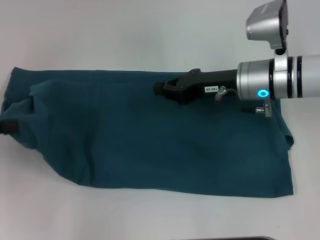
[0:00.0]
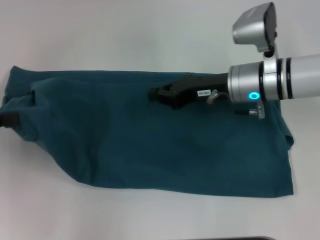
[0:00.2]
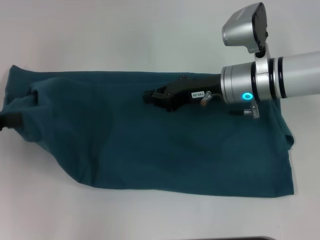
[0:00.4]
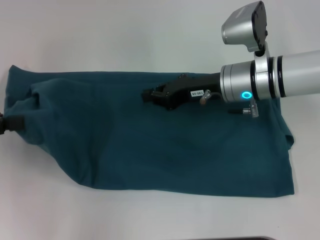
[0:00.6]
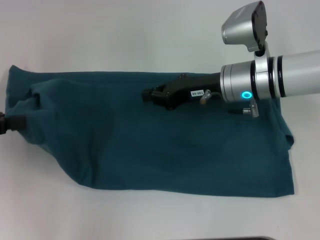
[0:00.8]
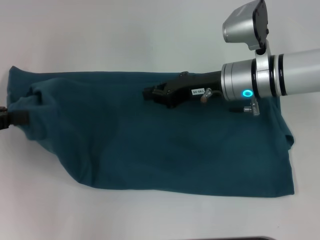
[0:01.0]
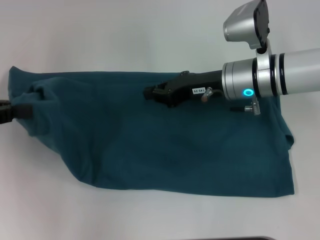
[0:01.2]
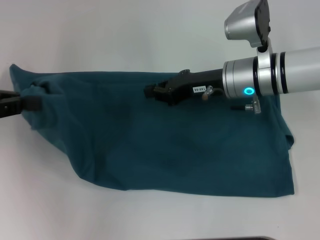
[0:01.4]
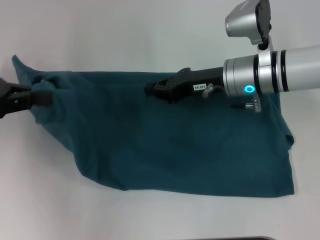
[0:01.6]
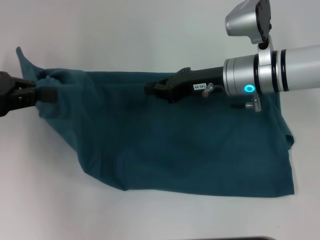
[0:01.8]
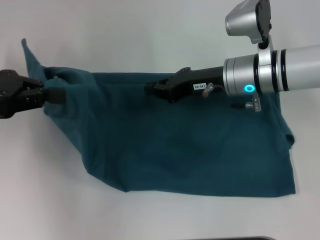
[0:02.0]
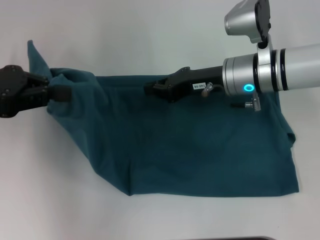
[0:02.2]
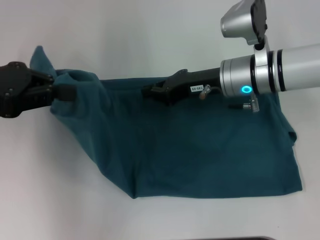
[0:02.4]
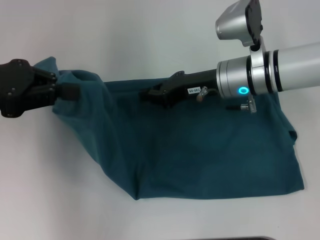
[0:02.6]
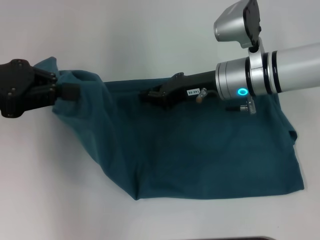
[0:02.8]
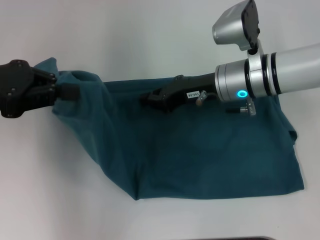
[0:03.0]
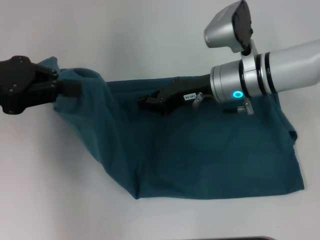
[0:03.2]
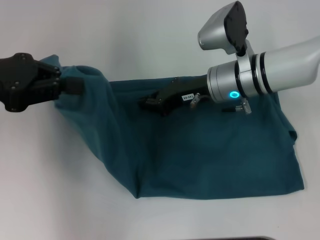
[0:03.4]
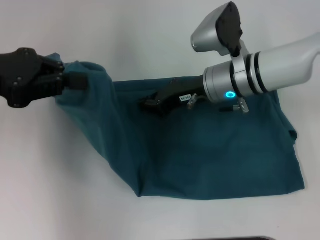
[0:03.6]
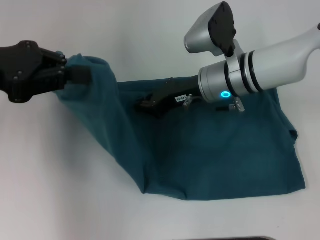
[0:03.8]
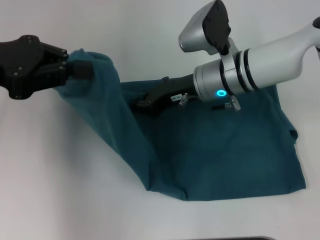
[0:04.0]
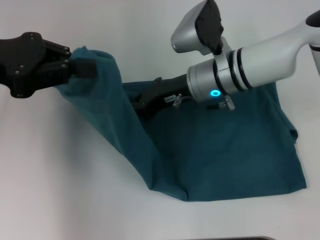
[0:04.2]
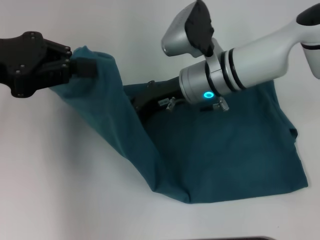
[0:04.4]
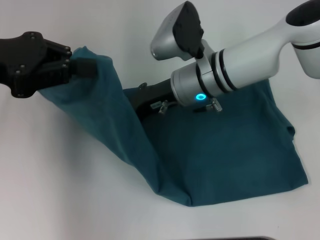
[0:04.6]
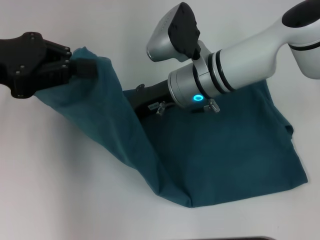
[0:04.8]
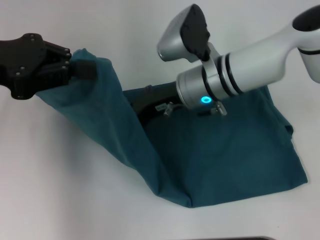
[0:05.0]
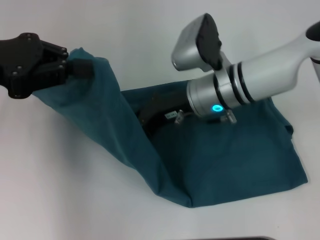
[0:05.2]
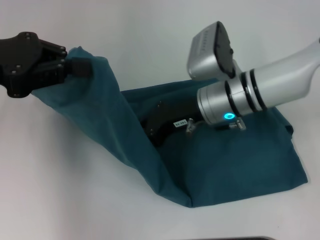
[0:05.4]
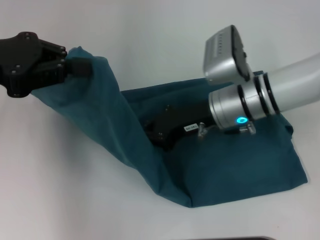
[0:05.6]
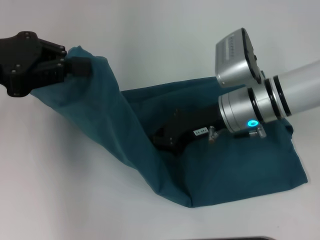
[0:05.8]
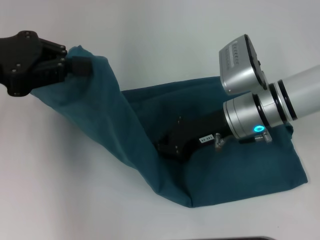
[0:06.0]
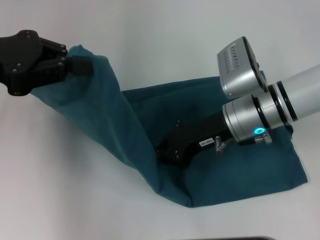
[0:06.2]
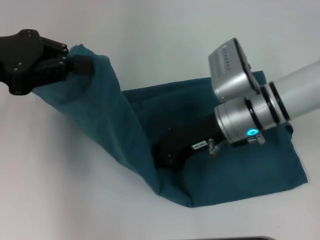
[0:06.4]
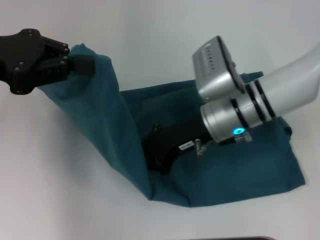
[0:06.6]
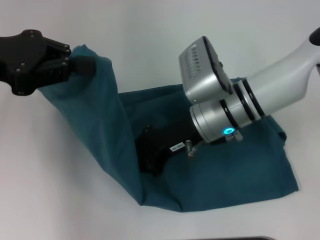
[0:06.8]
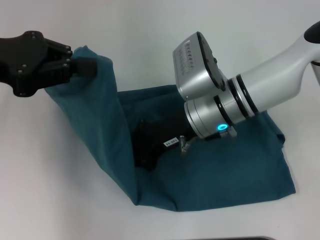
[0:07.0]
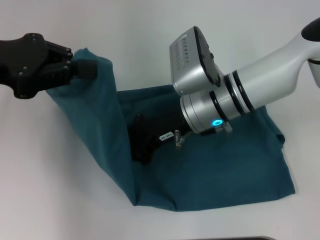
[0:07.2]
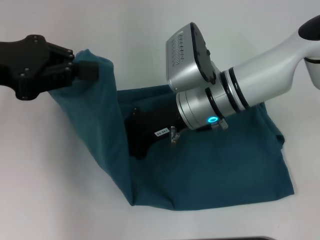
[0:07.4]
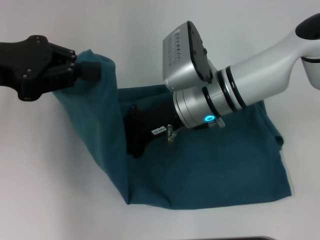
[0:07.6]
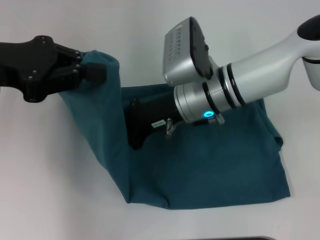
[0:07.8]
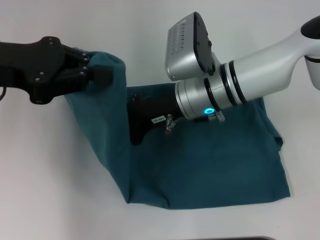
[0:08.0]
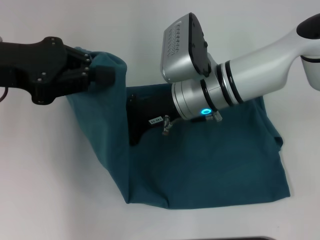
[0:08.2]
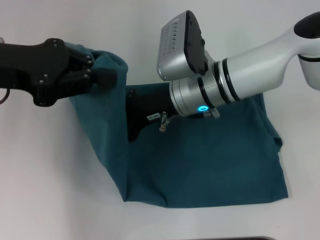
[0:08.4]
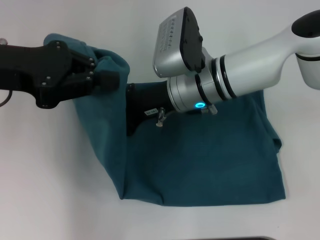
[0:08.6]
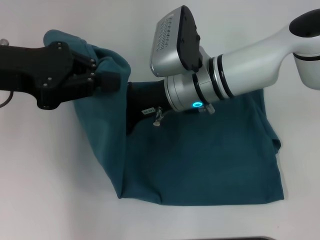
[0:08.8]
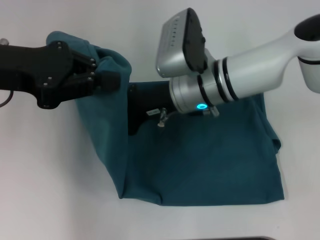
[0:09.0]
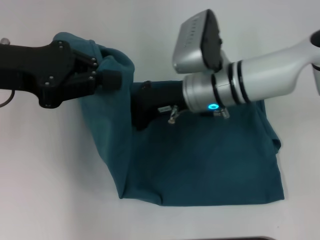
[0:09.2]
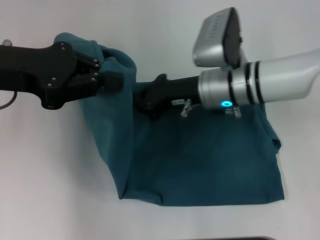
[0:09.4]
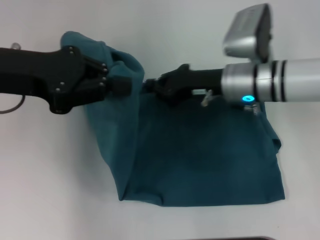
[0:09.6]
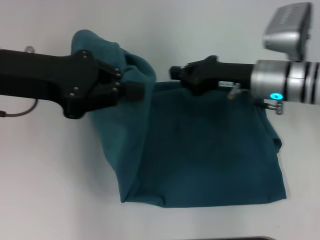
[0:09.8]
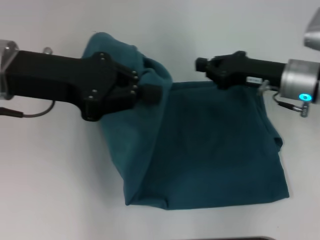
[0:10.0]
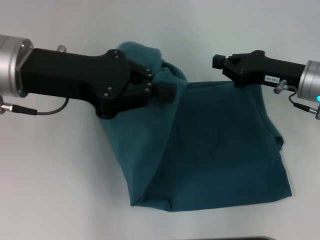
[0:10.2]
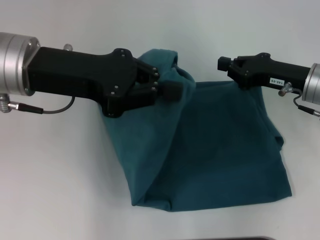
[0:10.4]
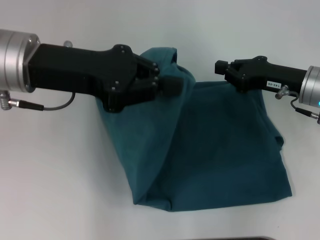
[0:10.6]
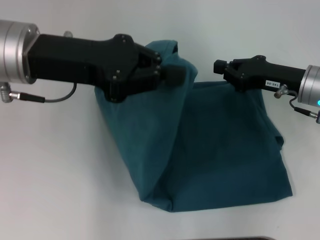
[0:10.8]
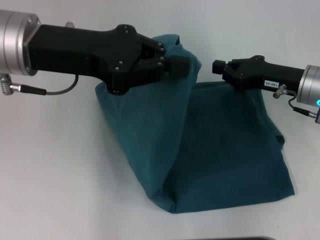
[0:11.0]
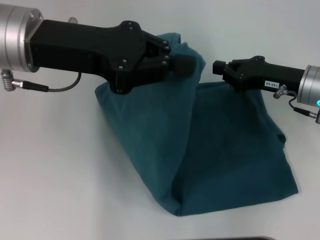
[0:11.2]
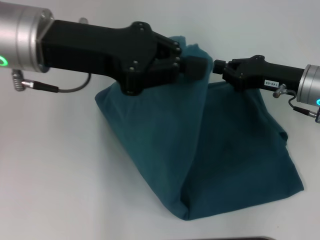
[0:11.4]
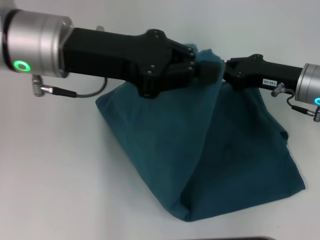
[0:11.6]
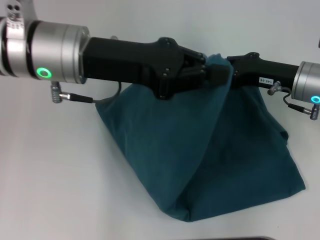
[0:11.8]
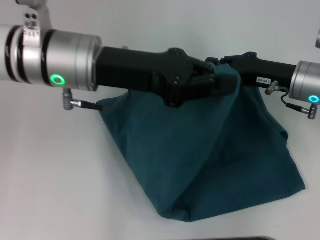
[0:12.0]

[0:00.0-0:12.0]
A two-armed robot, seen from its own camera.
Step, 0:00.0 to 0:09.2: Press the middle of the clothes with your right hand.
0:00.0 to 0:01.6: The left gripper shifts by about 5 cm.
0:01.6 to 0:03.0: There are only small adjustments of the grippers.
0:03.0 to 0:04.4: The right gripper moves to the left, some 5 cm.
0:04.4 to 0:06.0: The right gripper goes about 5 cm to the right.
0:06.0 to 0:07.6: The right gripper shifts roughly 5 cm to the left.
0:07.6 to 0:09.0: There are only small adjustments of the grippers.
0:09.0 to 0:10.4: The right gripper shifts some 20 cm to the right. Meanwhile the left gripper shifts roughly 5 cm to the right.
0:10.4 to 0:12.0: The left gripper travels to the right by roughly 5 cm.

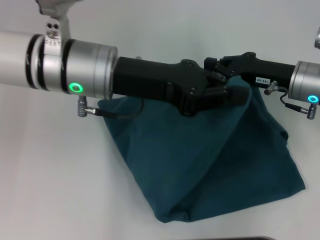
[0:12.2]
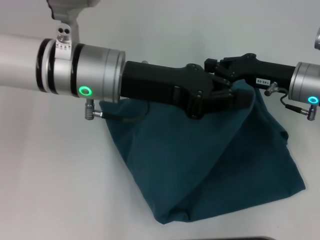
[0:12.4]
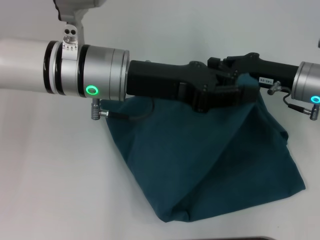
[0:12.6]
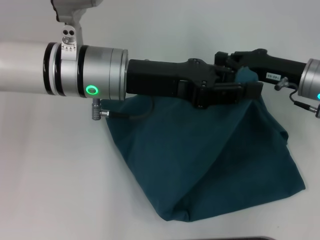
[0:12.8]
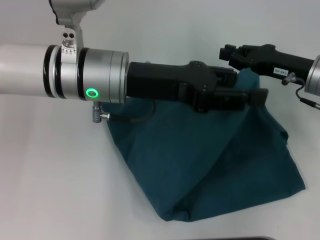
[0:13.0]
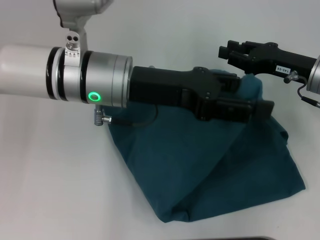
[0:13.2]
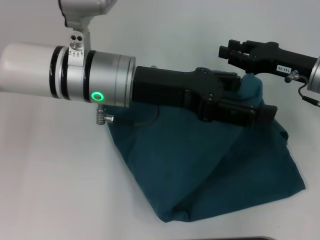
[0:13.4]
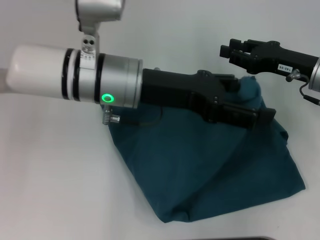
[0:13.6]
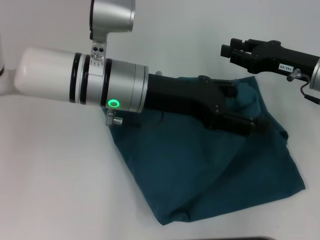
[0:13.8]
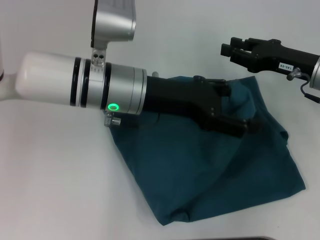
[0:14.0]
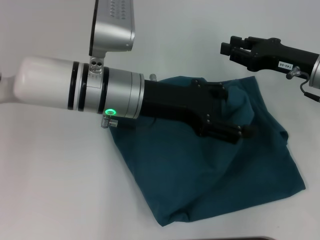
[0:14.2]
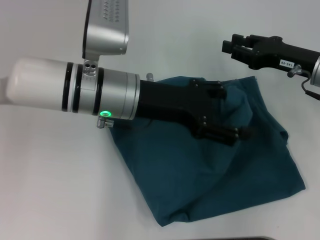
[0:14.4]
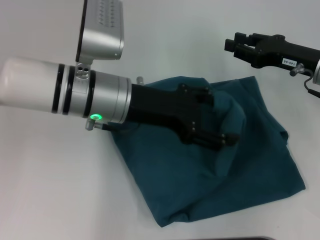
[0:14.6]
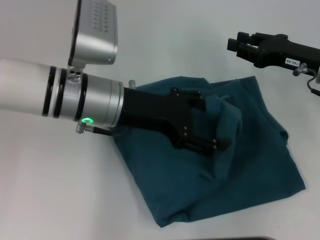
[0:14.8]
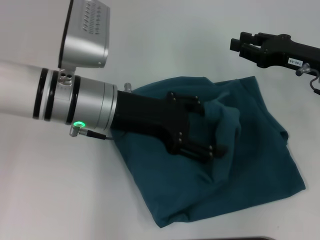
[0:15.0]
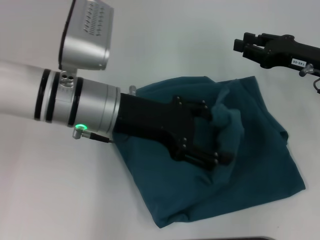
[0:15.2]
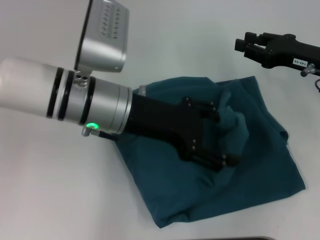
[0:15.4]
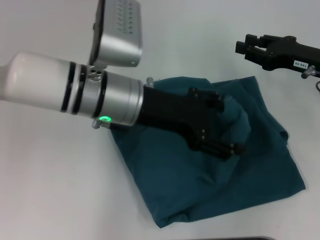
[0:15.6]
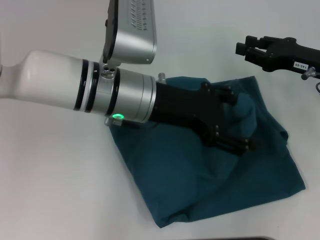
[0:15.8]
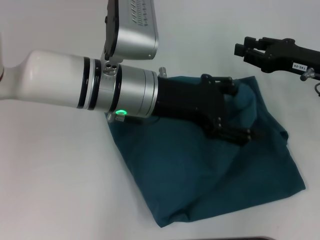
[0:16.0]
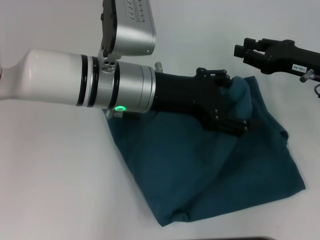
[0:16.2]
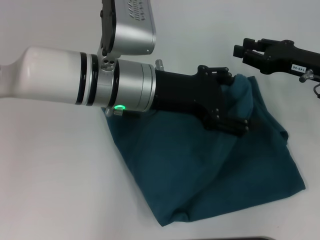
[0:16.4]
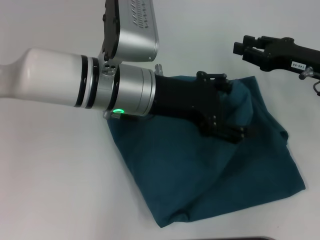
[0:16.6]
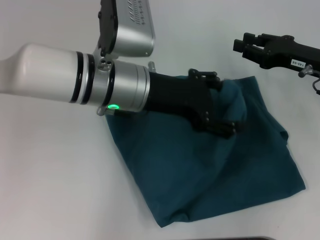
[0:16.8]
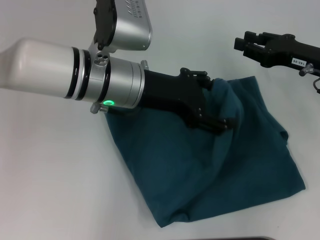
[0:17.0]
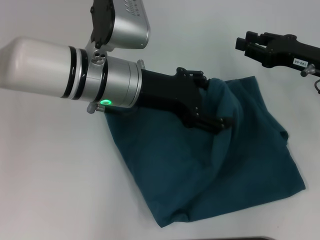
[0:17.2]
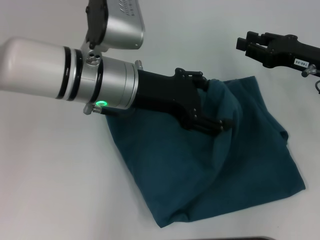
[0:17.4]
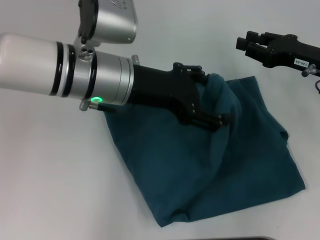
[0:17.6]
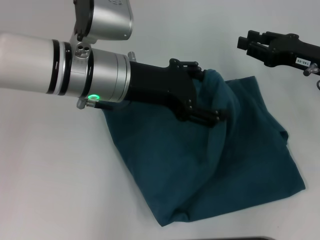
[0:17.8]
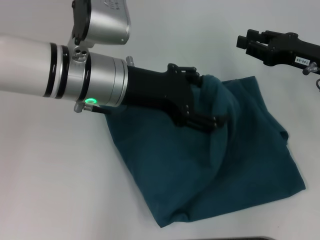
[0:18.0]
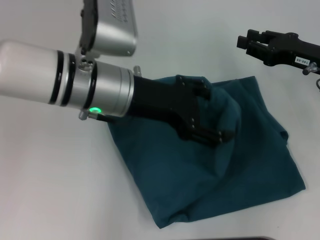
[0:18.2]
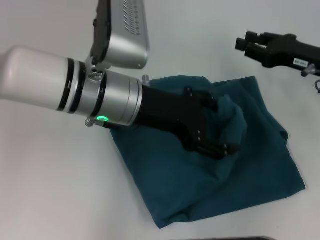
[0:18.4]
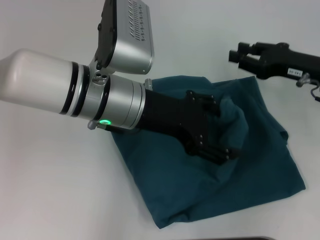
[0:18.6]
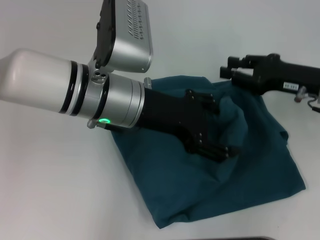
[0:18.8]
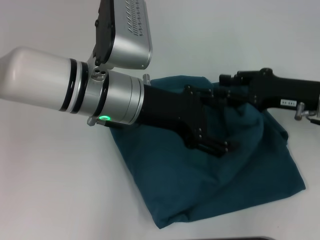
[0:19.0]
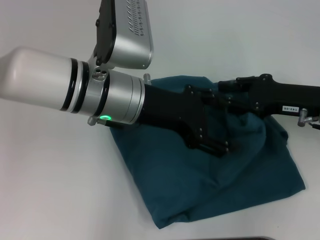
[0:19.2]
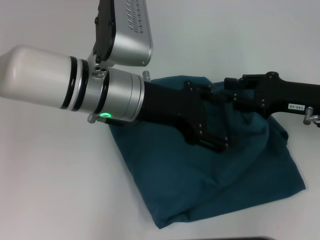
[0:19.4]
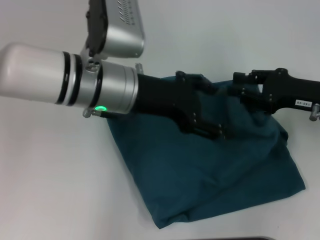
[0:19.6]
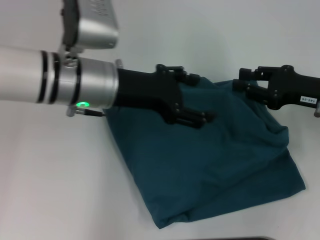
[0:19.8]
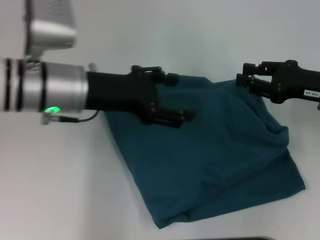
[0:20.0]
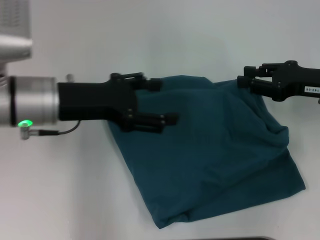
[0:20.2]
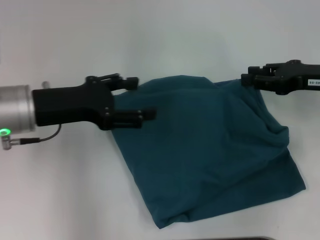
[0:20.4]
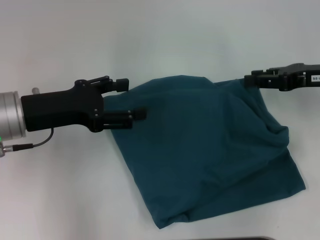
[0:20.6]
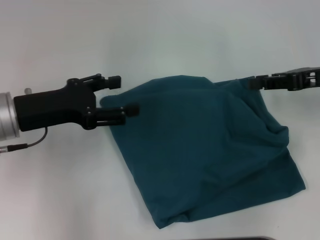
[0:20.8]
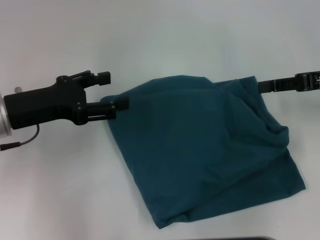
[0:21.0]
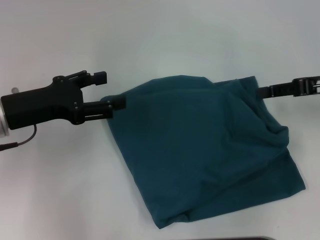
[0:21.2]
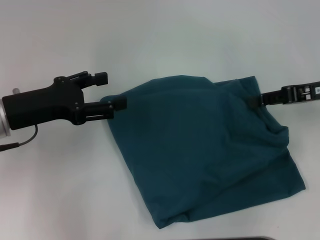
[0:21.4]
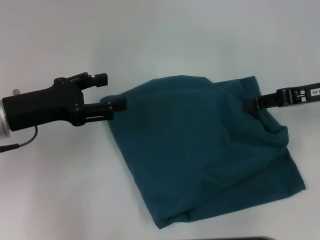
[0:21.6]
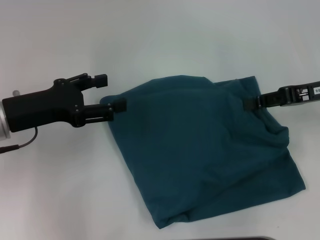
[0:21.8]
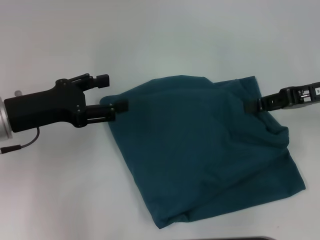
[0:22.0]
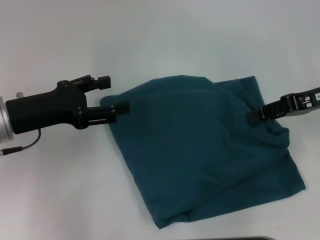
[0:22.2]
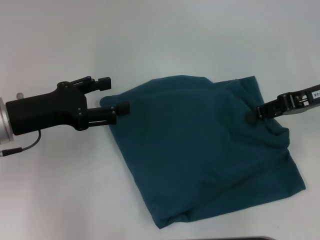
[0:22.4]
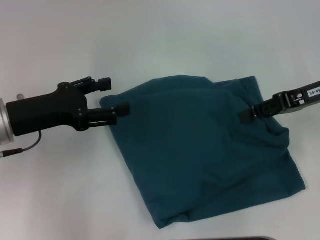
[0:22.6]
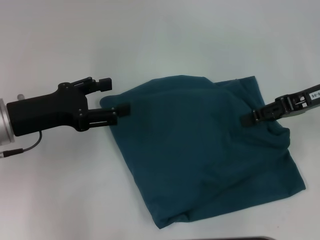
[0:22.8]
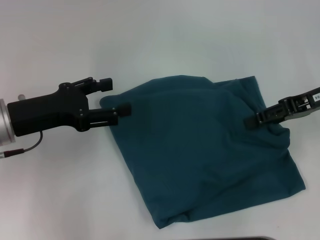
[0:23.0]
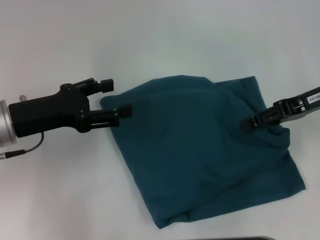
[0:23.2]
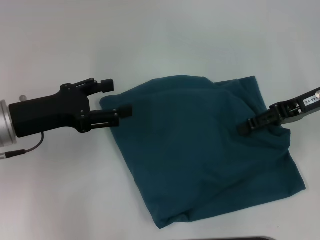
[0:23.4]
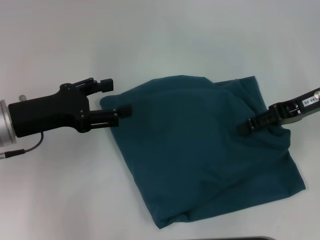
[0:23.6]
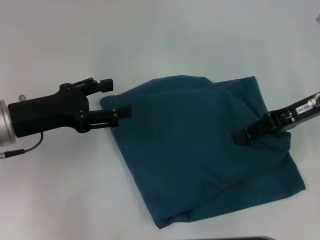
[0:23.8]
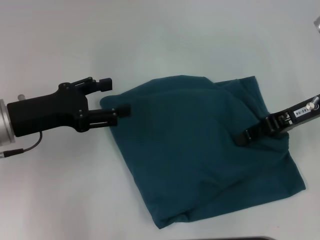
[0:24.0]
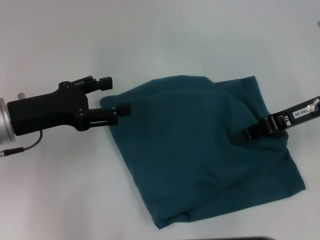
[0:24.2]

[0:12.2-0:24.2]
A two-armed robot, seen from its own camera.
Step, 0:12.2 to 0:19.8: Fold the clothes to the left.
0:12.2 to 0:13.8: The right gripper opens its fingers. Meanwhile the left gripper opens.
0:16.6 to 0:18.2: There are only small adjustments of the grippers.
0:19.8 to 0:21.2: The right gripper is displaced upward by some 5 cm. Meanwhile the left gripper goes about 15 cm to the left.
0:21.2 to 0:22.6: The grippers make only small movements.
0:22.6 to 0:24.2: The grippers stay close to where they were, moving slightly.
